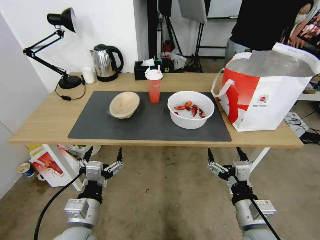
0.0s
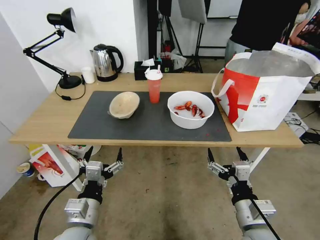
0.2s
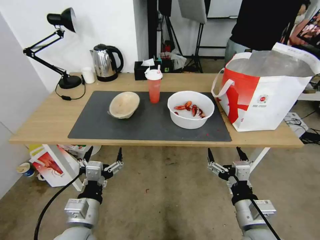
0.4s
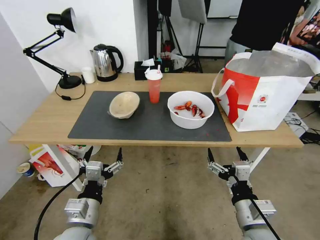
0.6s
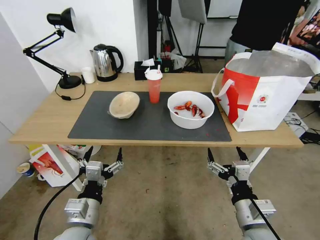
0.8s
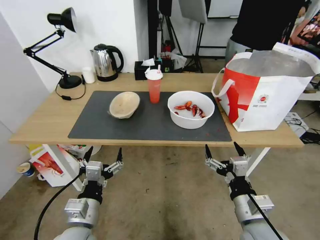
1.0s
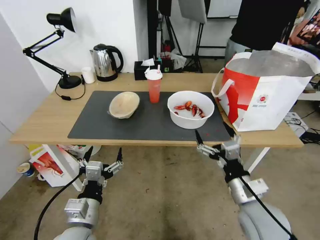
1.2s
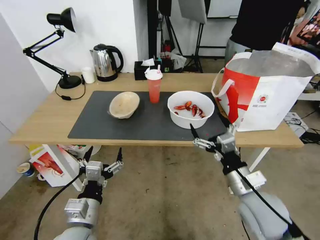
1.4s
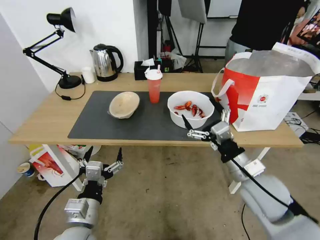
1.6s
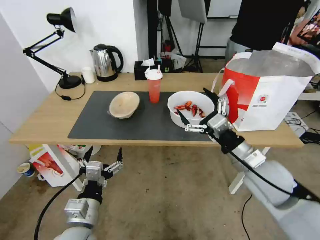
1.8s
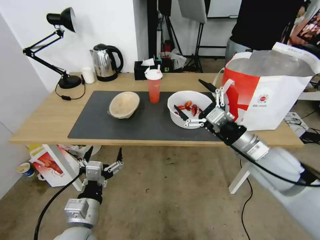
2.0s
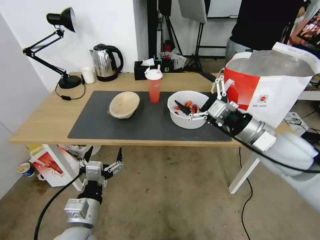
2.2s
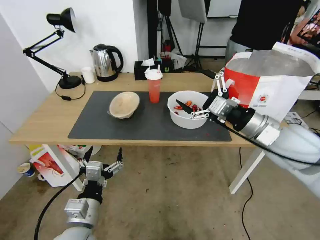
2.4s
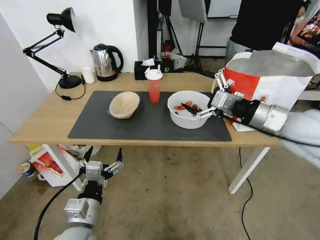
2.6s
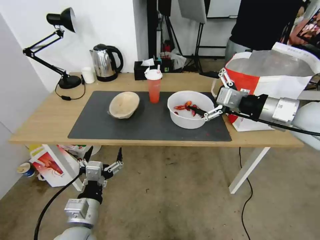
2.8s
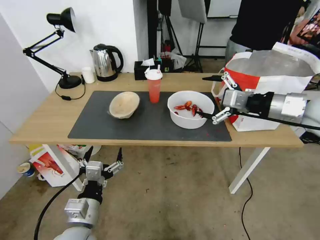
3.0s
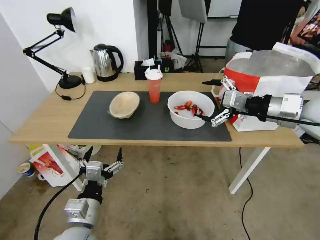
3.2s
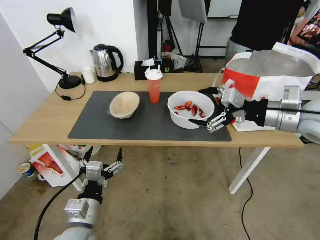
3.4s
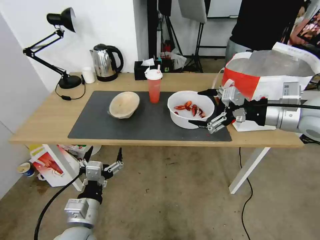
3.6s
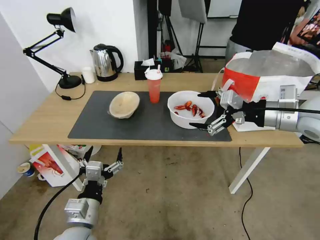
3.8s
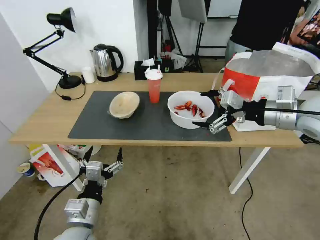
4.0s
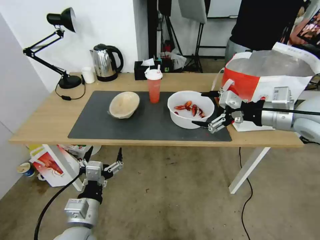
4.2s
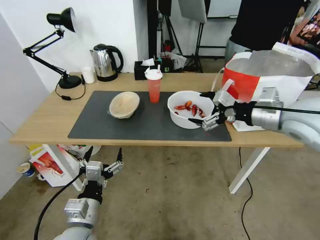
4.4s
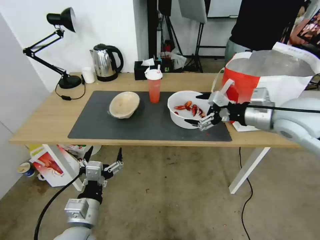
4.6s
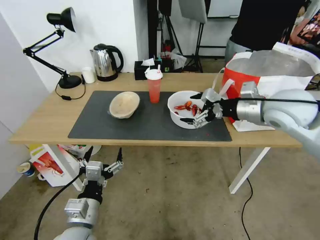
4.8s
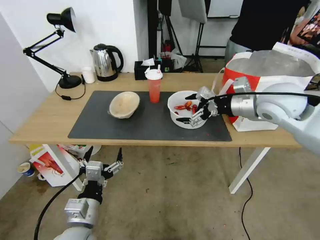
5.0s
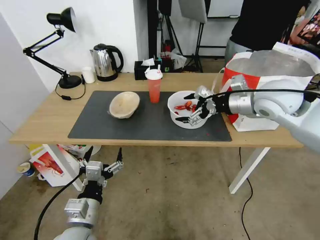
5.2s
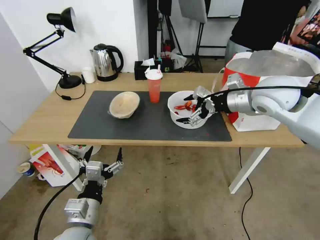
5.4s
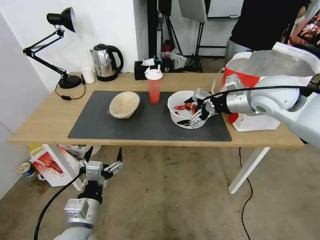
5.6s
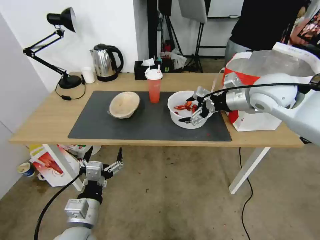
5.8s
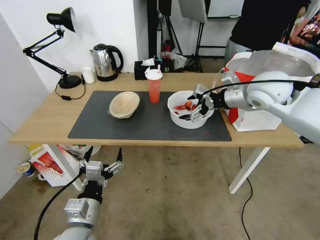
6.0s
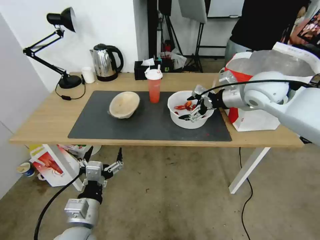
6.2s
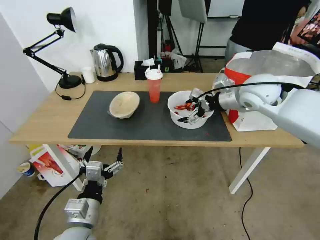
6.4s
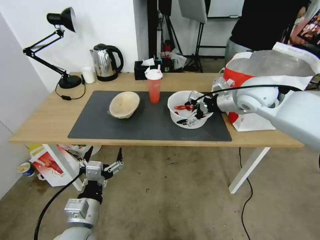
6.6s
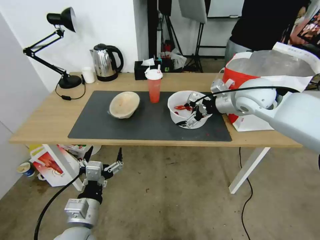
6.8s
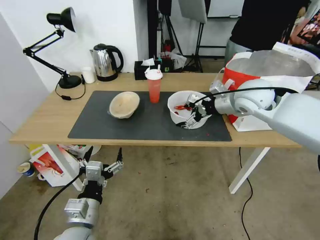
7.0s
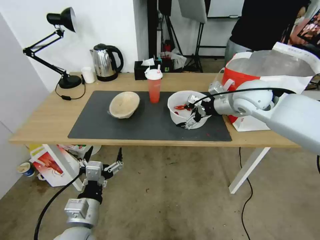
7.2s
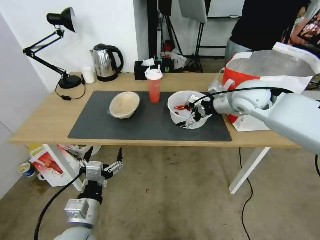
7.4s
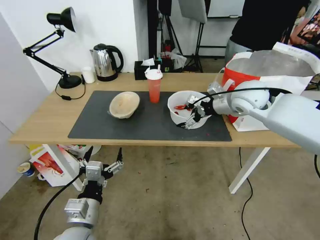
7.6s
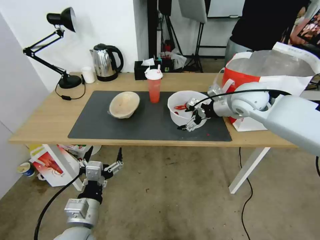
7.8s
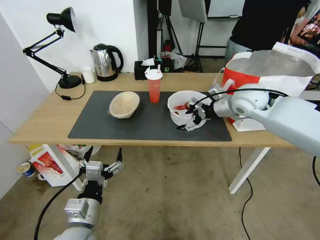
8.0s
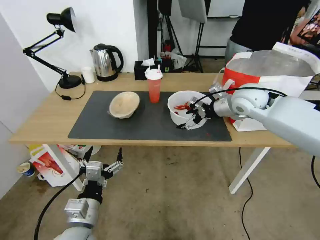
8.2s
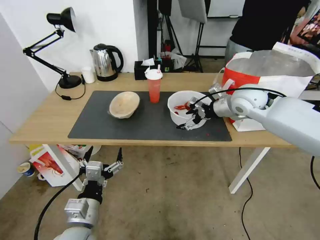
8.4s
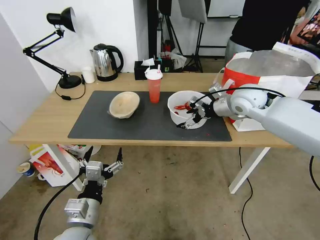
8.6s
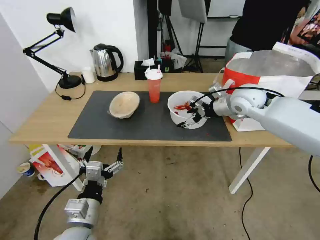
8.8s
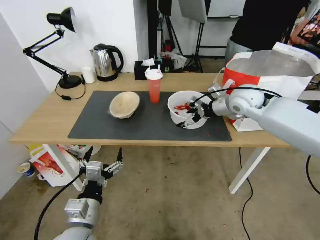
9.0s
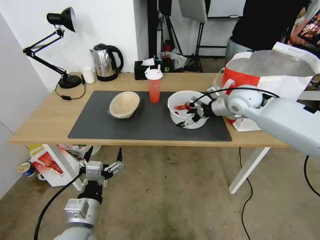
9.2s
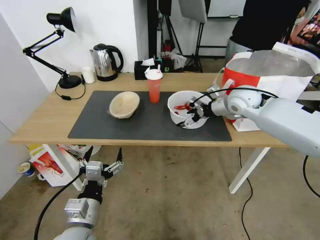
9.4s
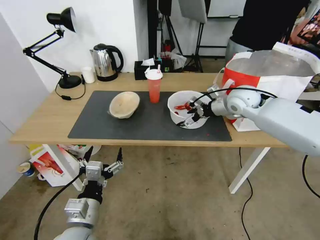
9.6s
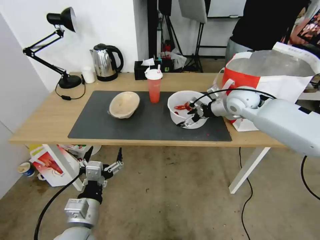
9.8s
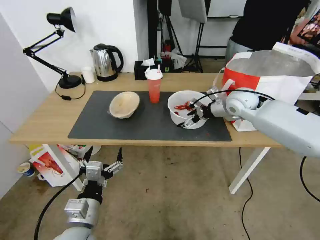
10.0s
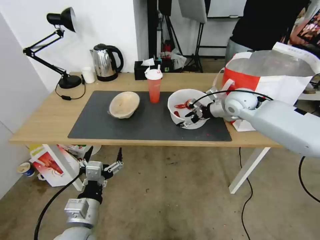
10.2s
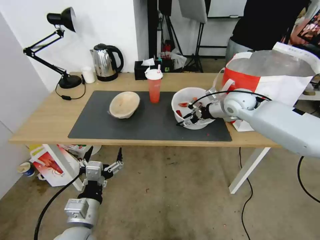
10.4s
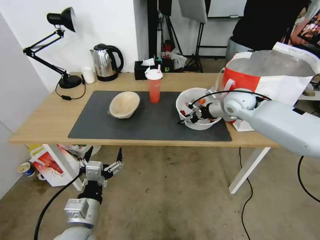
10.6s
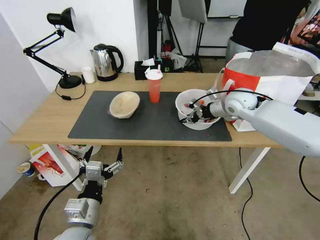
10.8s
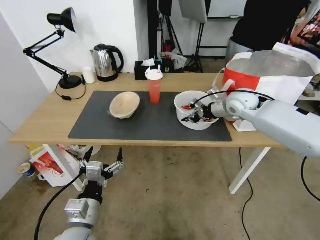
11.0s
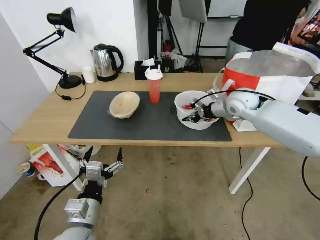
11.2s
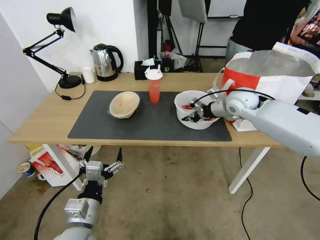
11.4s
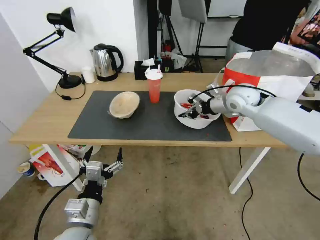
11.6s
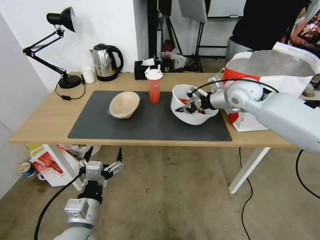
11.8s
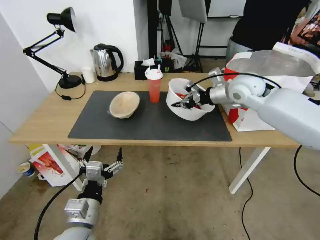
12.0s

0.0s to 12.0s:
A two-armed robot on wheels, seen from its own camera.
Task of the whole recording: Pick up the trash from the table and place it into the takeout bag.
1.6s to 3.0s: The right gripper travels upward, to the right and forward by approximately 25 cm.
4.4s to 6.0s: The right gripper shifts approximately 10 cm forward.
6.0s to 7.6s: The right gripper ends up approximately 5 cm from where it was.
7.6s to 9.0s: The grippers move only a little.
9.0s to 10.4s: The right gripper closes its fingers.
10.4s to 12.0s: The right gripper goes about 5 cm upward, and closes up.

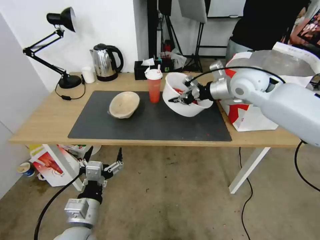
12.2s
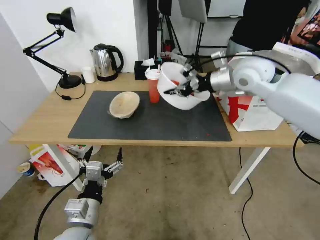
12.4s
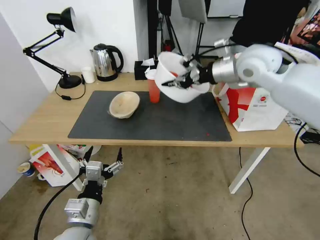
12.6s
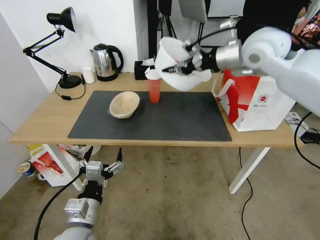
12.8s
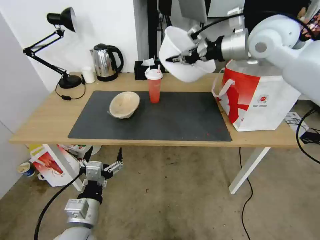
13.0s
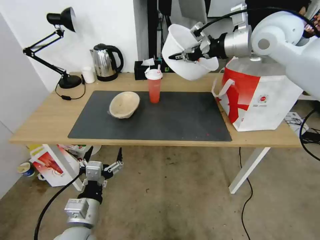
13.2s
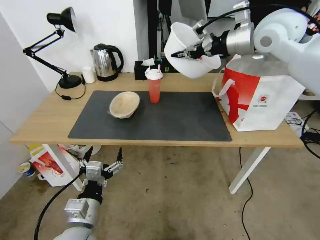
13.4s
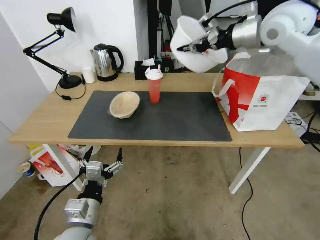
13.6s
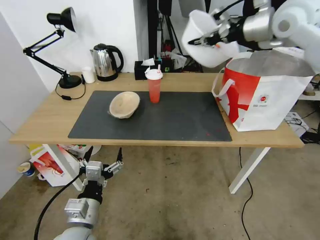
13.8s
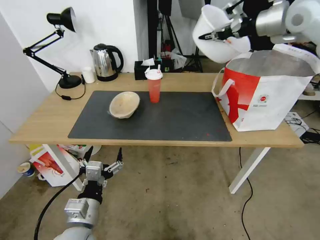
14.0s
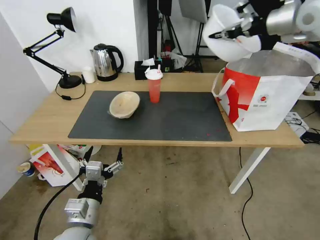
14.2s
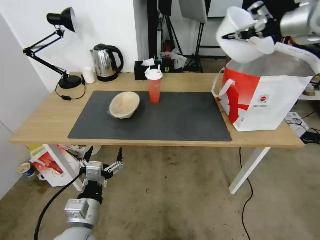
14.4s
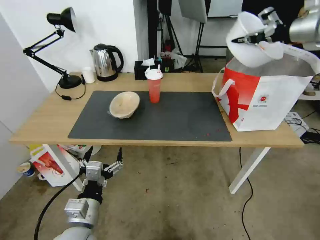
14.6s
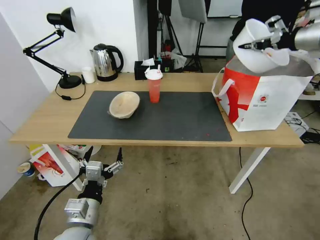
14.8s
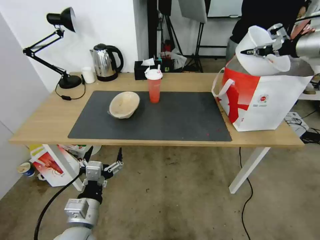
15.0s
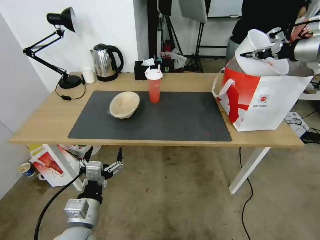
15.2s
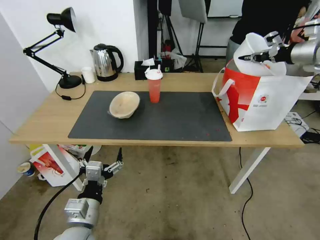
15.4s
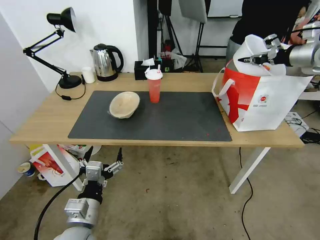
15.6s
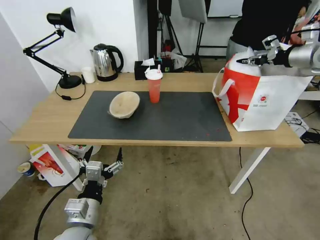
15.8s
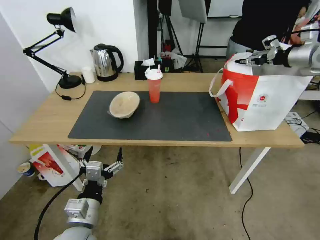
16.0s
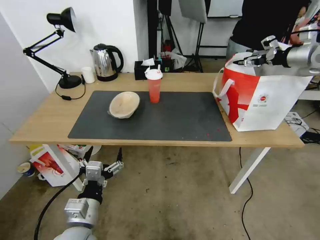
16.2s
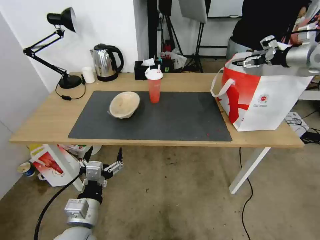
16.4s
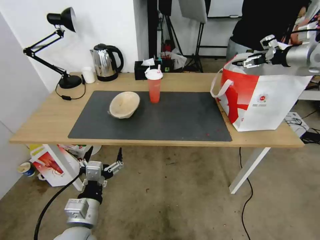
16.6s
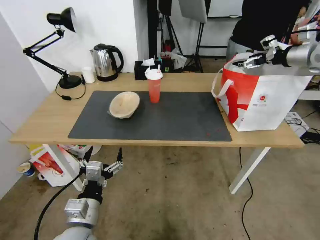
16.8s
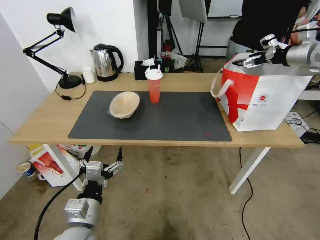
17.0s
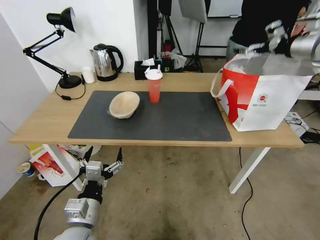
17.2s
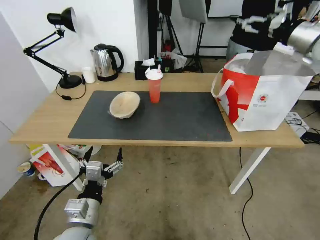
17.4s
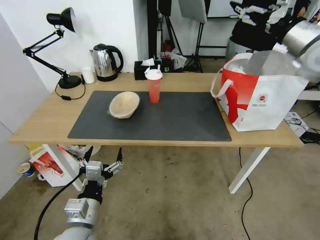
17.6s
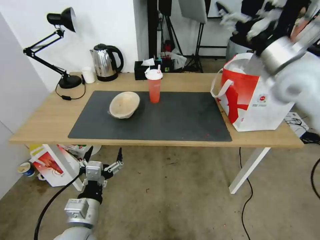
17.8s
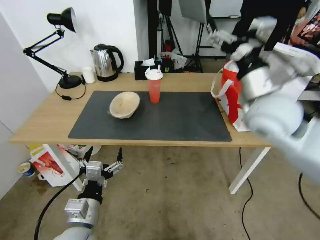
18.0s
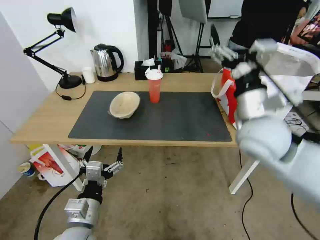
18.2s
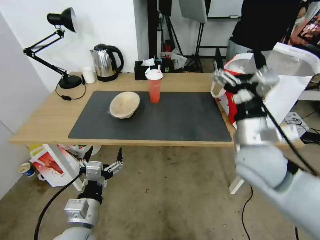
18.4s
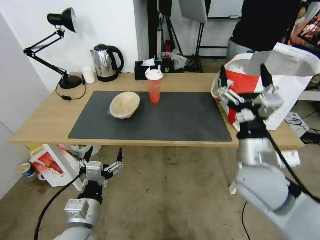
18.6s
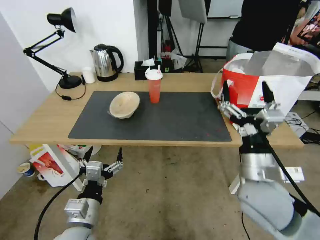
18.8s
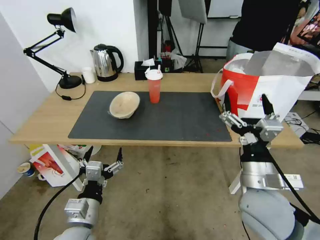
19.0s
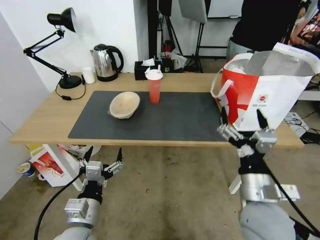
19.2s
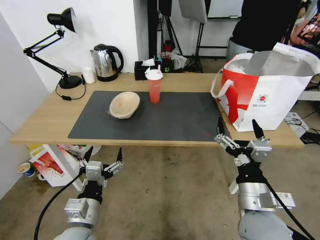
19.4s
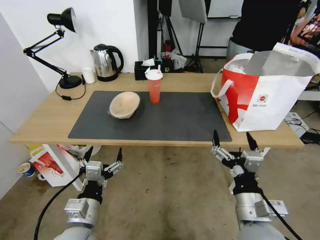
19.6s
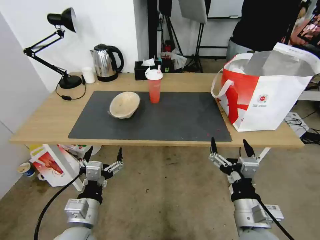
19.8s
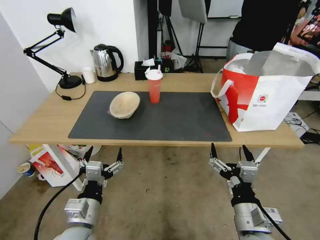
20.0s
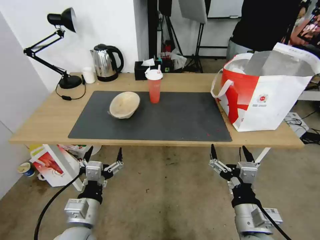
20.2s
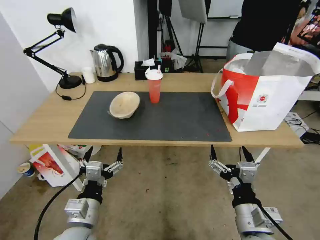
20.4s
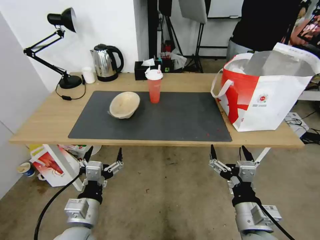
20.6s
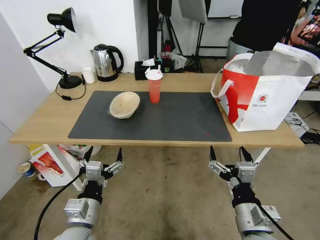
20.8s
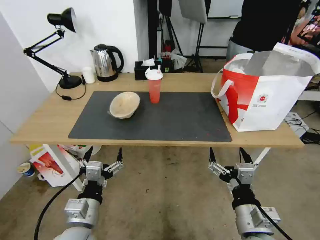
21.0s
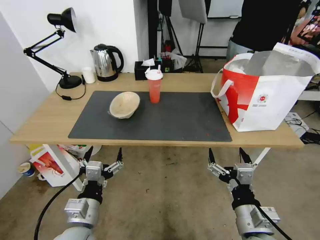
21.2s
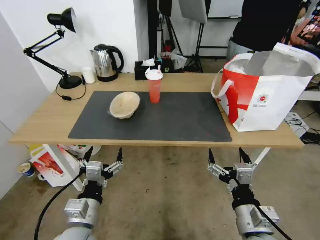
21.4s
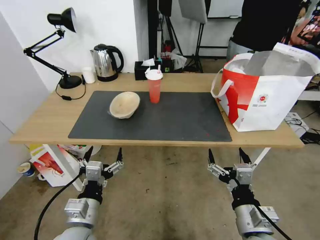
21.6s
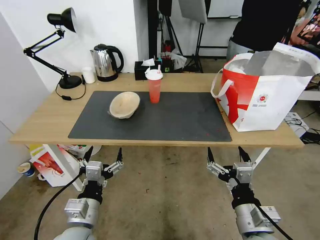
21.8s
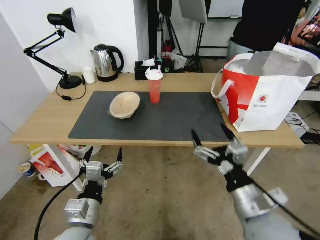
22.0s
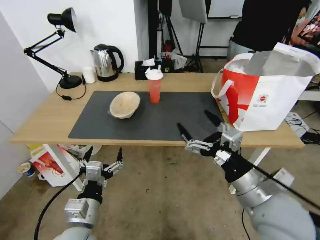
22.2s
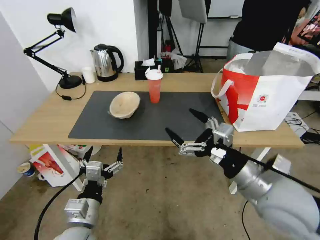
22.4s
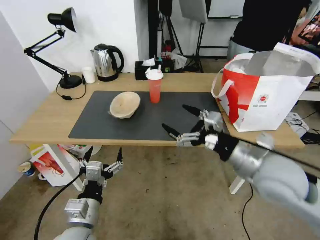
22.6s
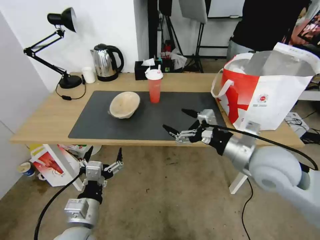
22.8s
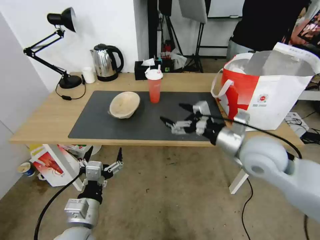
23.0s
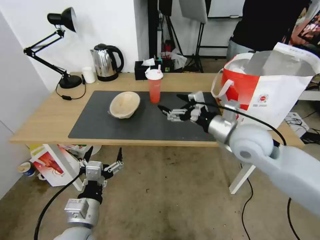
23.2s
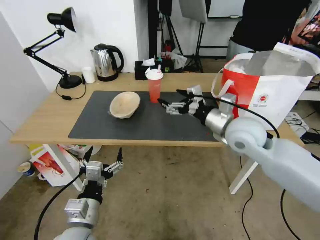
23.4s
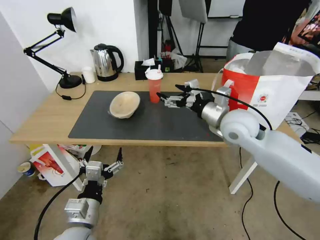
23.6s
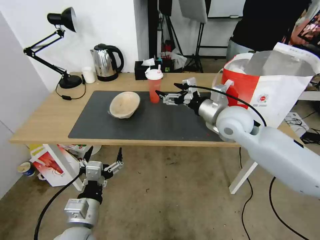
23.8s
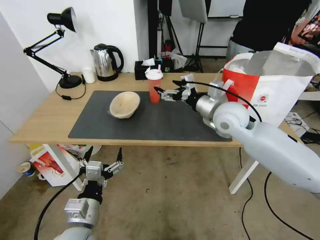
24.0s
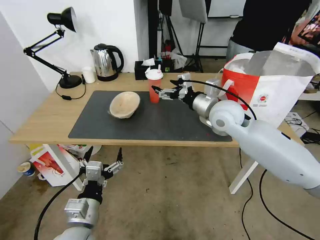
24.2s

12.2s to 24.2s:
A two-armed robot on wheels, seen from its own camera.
Task of the whole recording: Pick up the trash from the table and place it into the takeout bag.
12.2s to 13.8s: The right gripper goes roughly 15 cm upward.
13.8s to 15.2s: The right gripper shifts approximately 20 cm to the right.
15.2s to 16.6s: The right gripper opens.
16.6s to 18.2s: The right gripper is displaced to the left, backward and downward by roughly 35 cm.
18.2s to 19.8s: The right gripper travels backward and downward by approximately 25 cm.
19.8s to 21.2s: The grippers move only a little.
21.2s to 22.6s: The right gripper moves forward and upward, about 20 cm.
22.6s to 24.2s: The right gripper goes roughly 15 cm forward.
